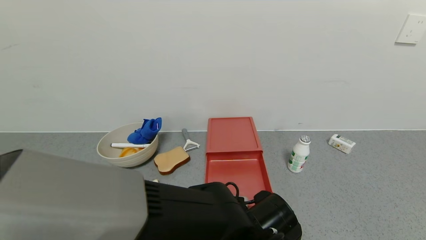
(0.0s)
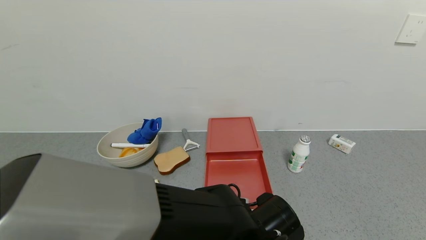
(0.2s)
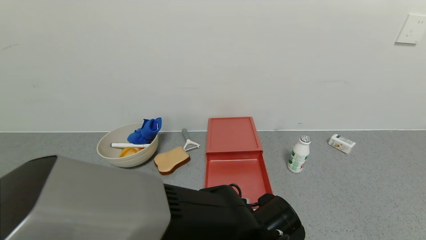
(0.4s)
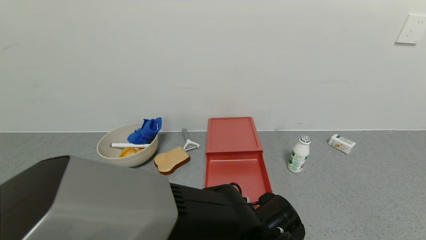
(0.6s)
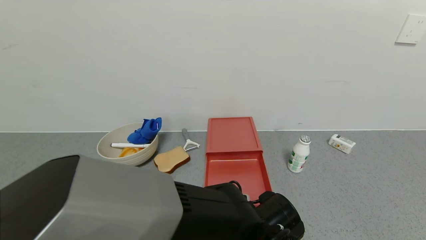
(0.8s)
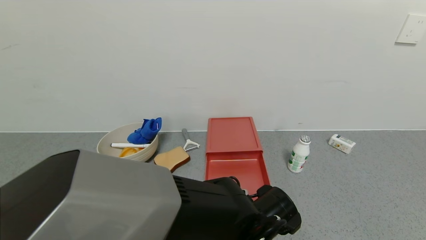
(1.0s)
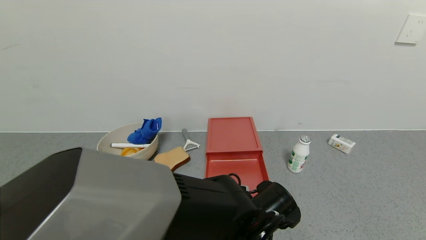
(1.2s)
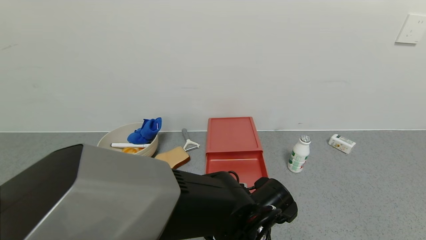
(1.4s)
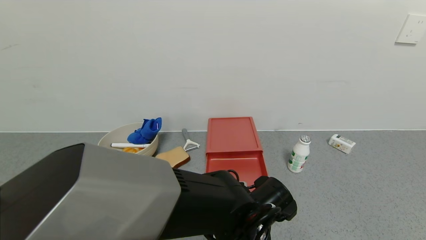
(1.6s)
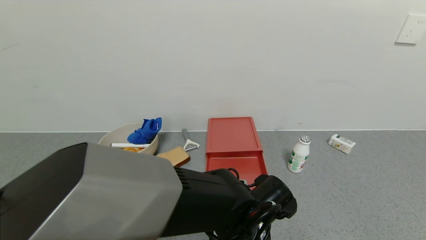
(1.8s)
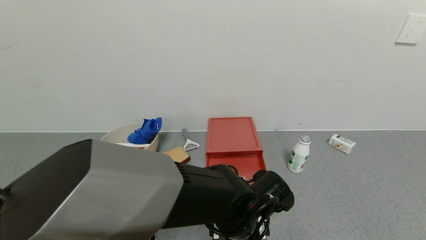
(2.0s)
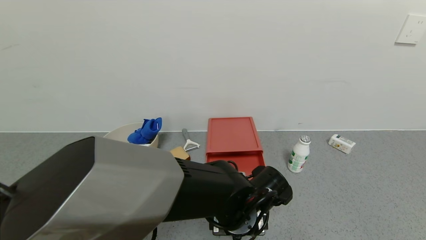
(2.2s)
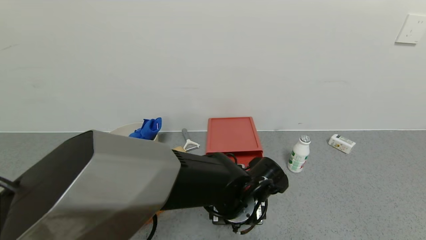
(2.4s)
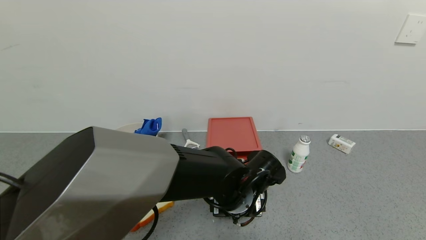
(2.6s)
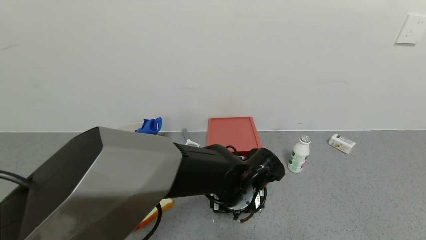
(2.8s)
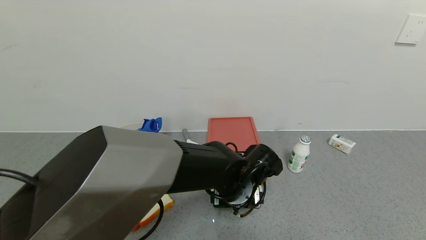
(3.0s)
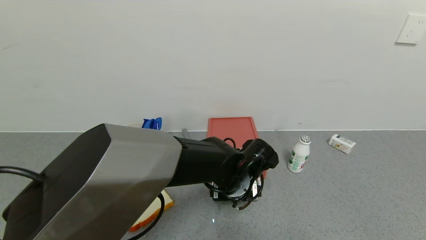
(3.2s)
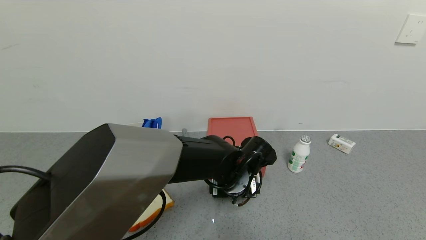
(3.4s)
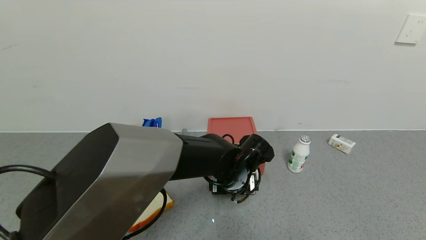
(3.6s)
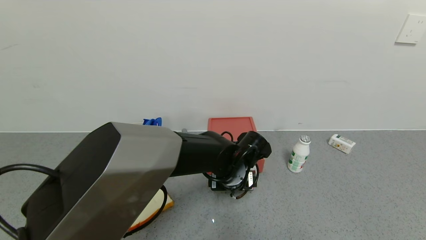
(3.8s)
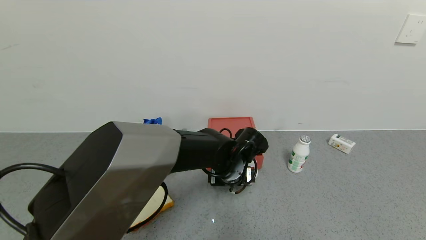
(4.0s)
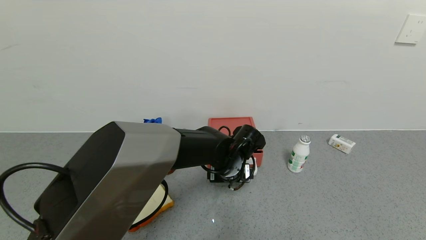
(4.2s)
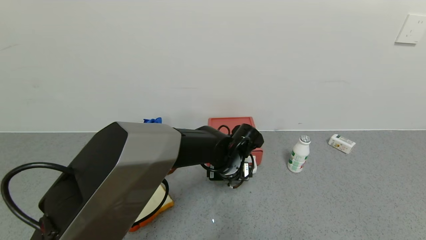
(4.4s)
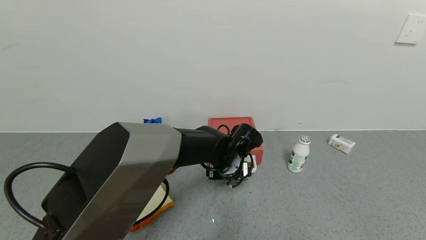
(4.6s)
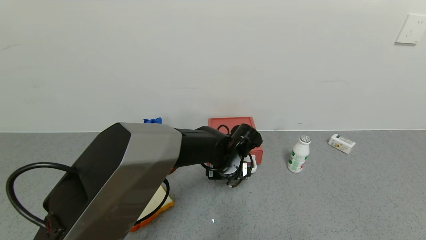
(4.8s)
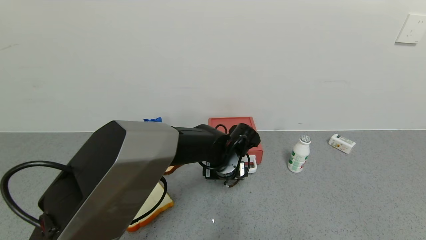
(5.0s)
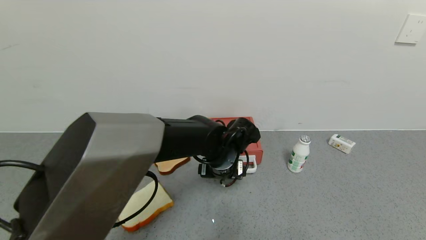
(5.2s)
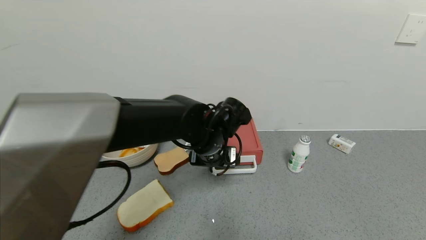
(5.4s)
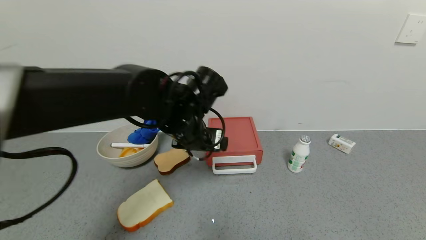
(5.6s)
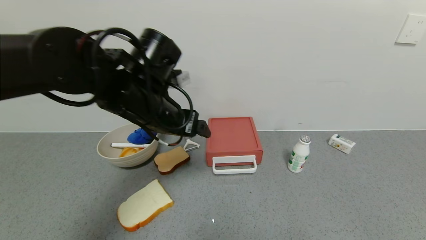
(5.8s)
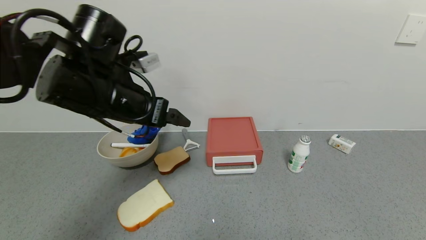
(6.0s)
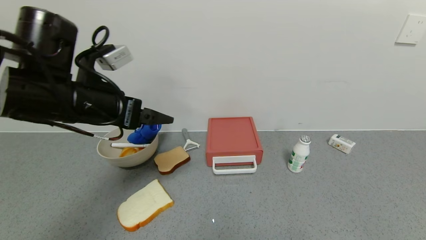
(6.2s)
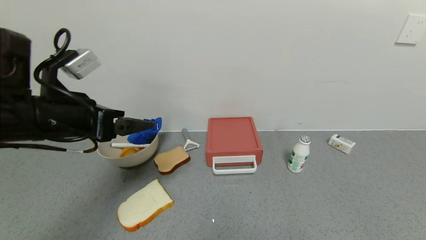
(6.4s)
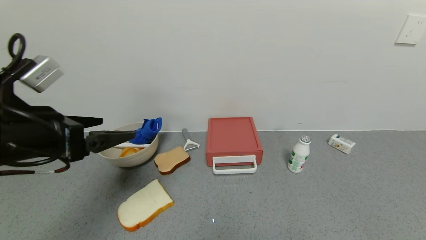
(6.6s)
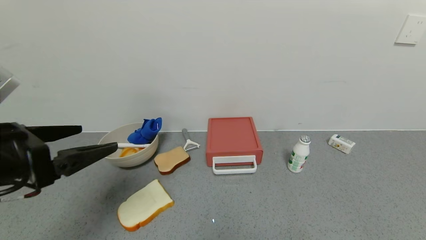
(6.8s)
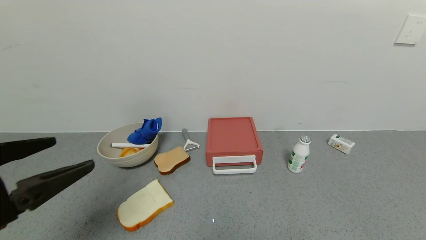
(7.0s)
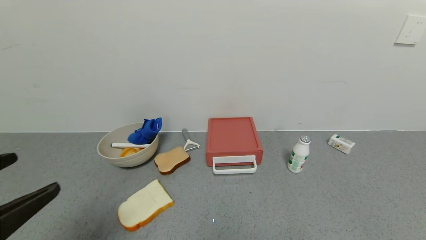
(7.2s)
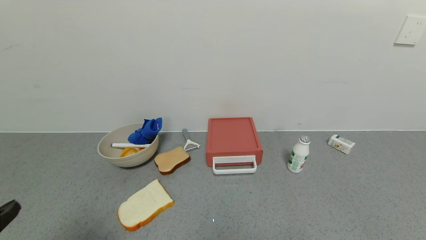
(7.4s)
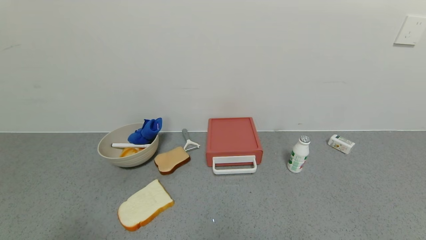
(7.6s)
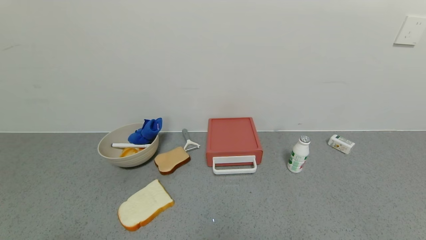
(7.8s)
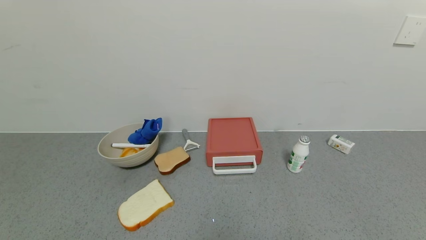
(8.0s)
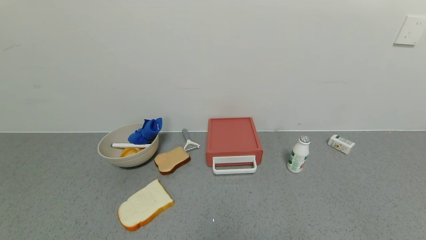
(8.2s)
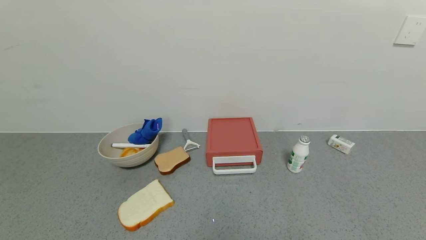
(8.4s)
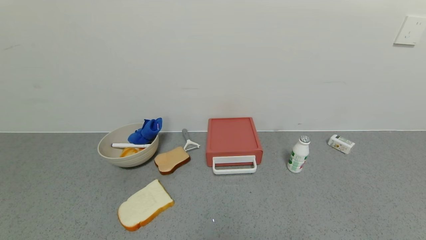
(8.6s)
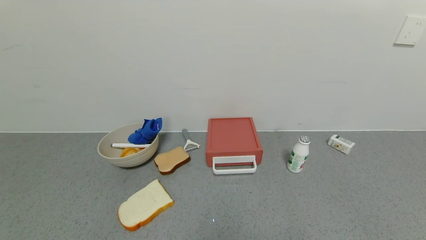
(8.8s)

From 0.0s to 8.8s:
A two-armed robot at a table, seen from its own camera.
Task of the whole recording: use the gripper to open the drawer and close the red drawer.
Step, from 0.0s to 5.2s: Close the red drawer with left gripper.
From 0.0s to 1.4s: There are only small adjustments of the grippers.
From 1.4s to 3.0s: The left gripper heads forward, covering approximately 5 cm.
From 3.0s to 4.4s: The left gripper travels forward by some 5 cm.
From 4.4s to 5.8s: The left gripper moves upward and to the left, approximately 20 cm.
From 5.8s to 7.4s: The left gripper is displaced backward and to the left by roughly 30 cm.
From 7.4s to 8.8s: The left gripper shifts about 15 cm downward.
